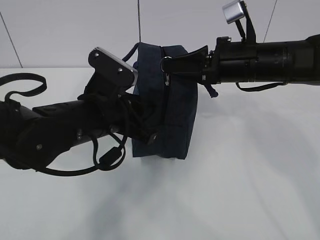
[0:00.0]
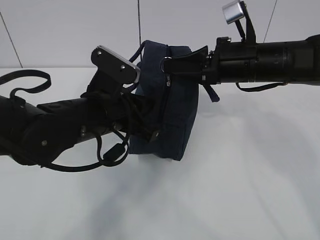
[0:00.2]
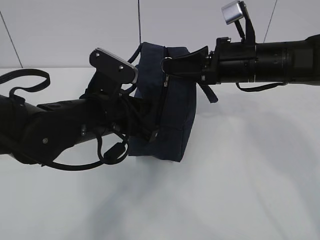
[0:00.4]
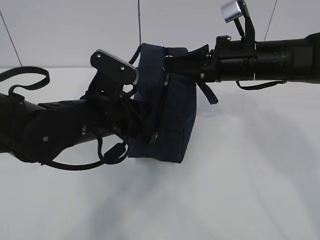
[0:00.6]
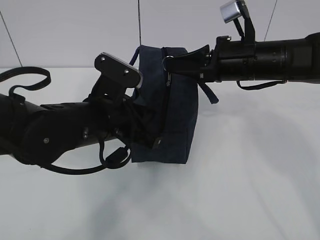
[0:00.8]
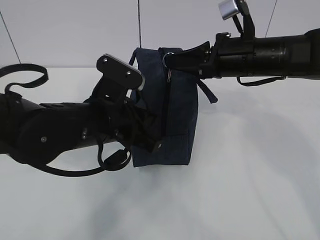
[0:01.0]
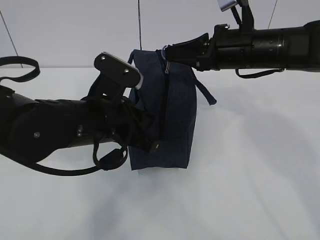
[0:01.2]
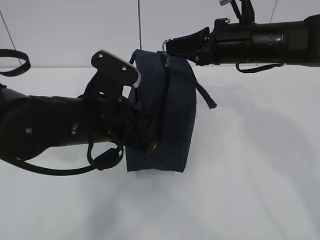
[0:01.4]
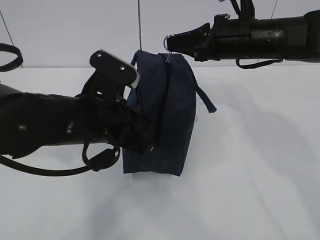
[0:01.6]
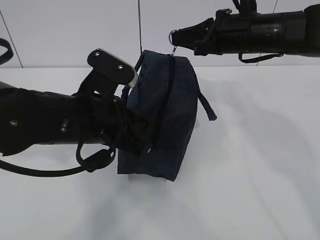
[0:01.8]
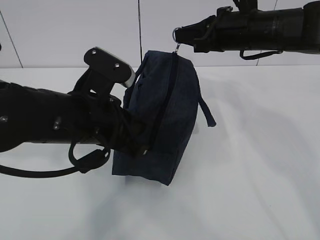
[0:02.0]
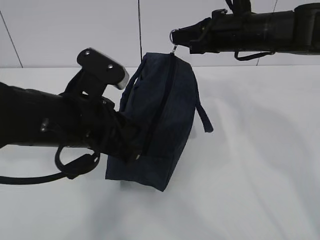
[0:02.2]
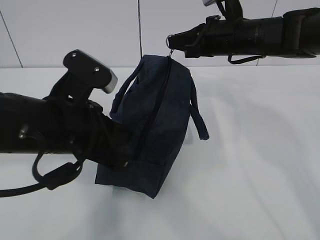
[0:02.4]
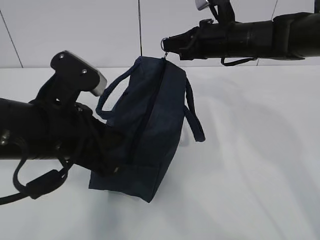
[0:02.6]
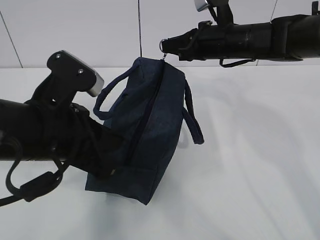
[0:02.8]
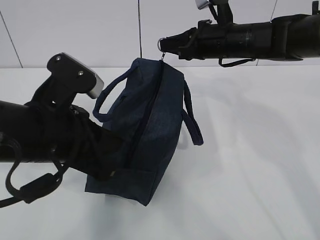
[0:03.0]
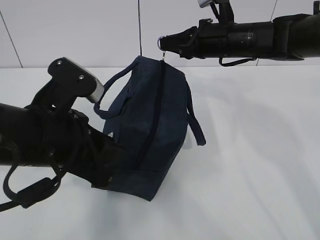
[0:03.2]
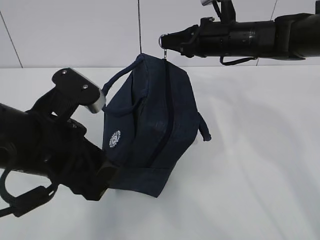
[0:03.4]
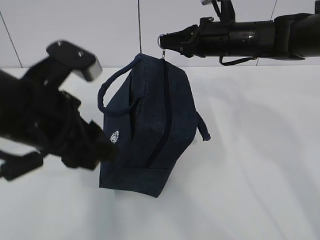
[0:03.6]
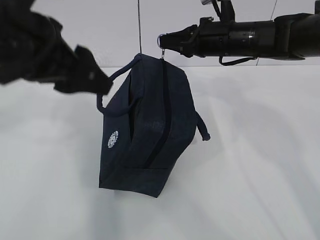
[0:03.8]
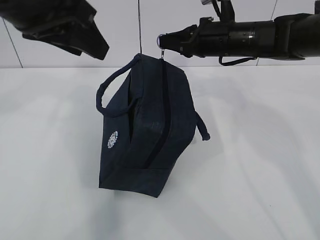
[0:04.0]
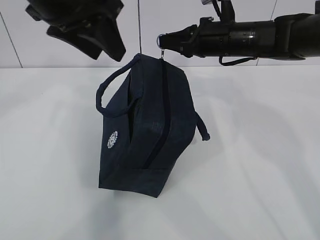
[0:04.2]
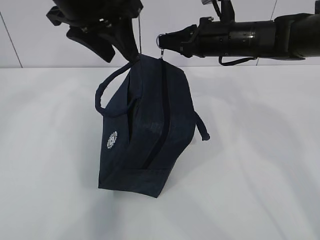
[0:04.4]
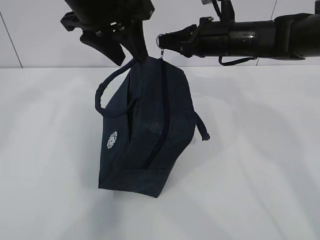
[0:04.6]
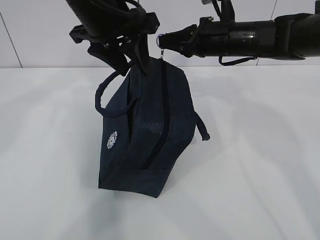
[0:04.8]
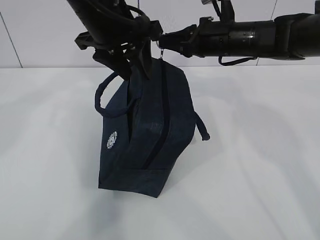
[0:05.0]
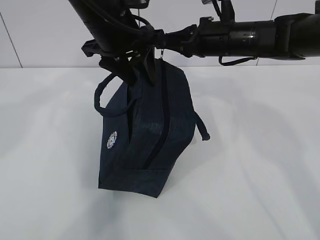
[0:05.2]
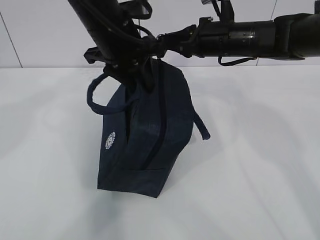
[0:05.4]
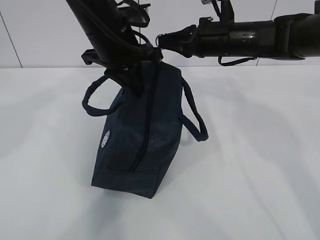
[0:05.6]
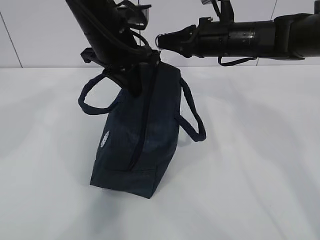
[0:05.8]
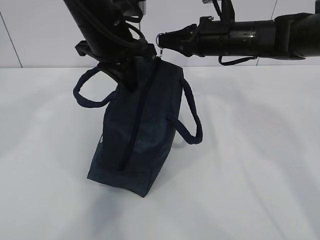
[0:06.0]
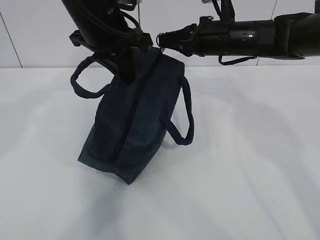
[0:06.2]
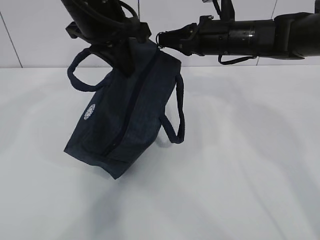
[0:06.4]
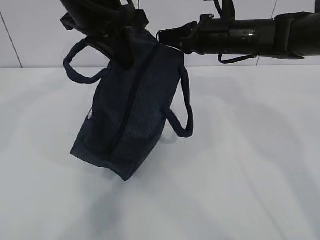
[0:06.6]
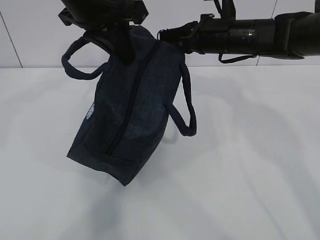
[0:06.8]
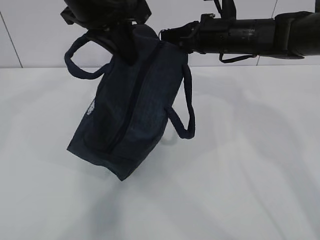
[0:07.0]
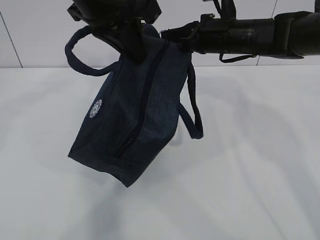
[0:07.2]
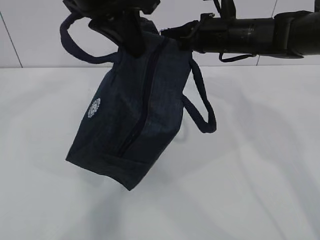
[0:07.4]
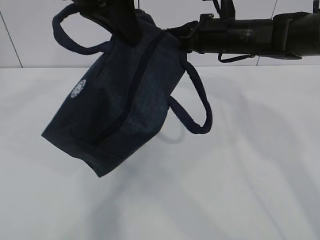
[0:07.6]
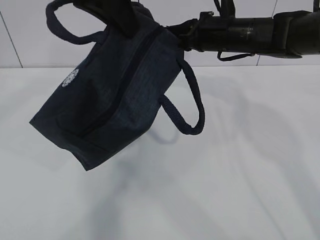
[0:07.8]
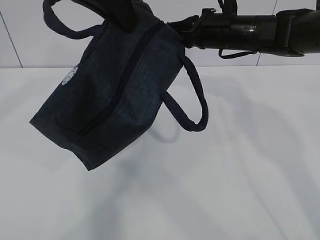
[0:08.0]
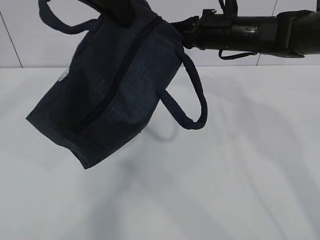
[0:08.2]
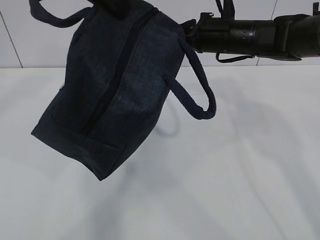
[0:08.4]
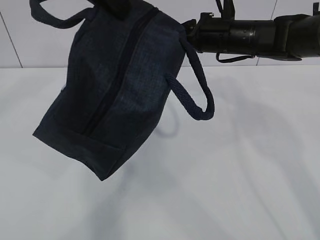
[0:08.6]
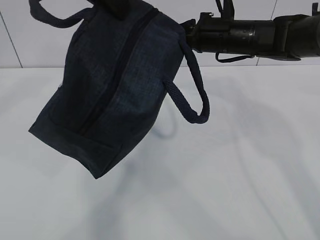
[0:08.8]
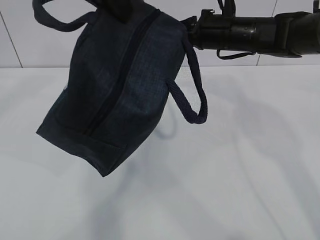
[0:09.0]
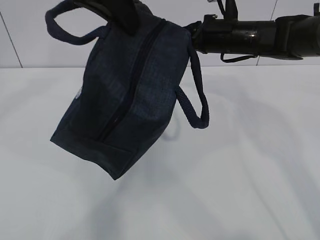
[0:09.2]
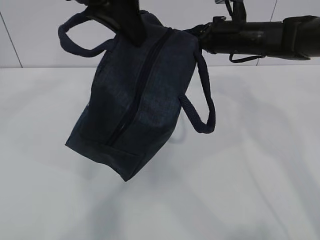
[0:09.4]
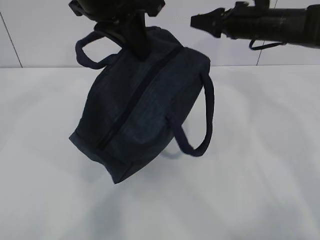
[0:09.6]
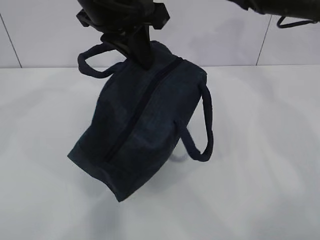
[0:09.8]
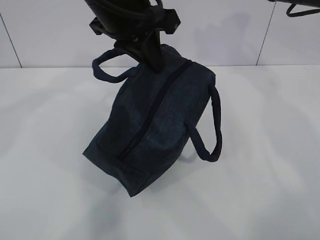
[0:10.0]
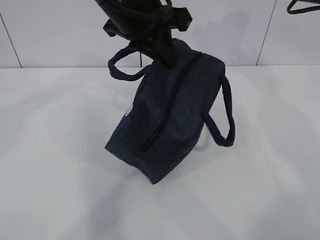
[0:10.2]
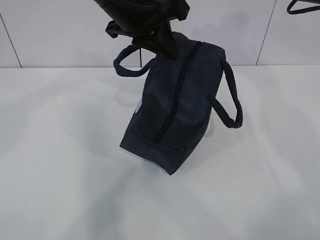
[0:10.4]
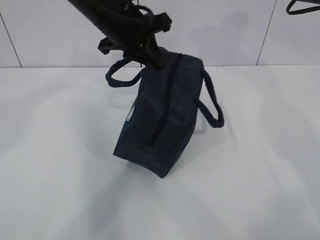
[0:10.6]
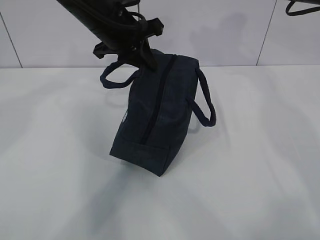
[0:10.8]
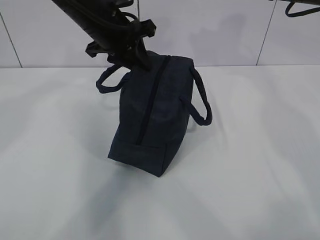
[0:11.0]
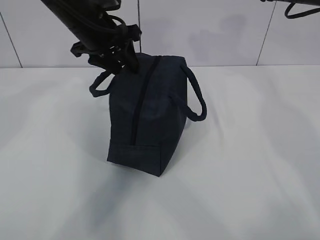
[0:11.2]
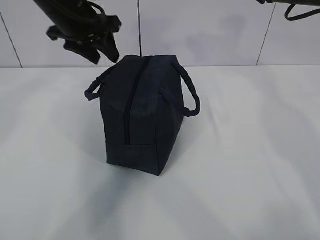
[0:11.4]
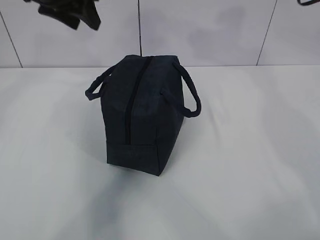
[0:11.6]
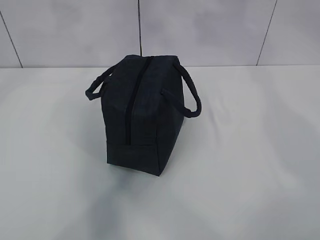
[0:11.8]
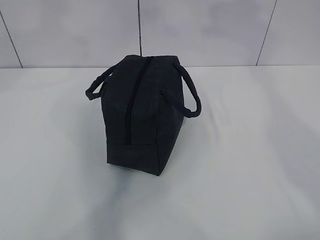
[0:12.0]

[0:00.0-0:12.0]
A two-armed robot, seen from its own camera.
Step, 0:00.0 to 0:00.8: Grab the lunch bag with your left hand.
0:00.0 to 0:01.6: The left gripper closes.
0:01.6 to 0:03.0: The left gripper changes place by some 5 cm, while the right gripper shifts about 5 cm forward.
0:03.0 to 0:04.4: The left gripper moves upward and forward, about 20 cm, and opens its fingers.
0:04.4 to 0:06.0: The left gripper travels downward by about 5 cm, and closes its fingers.
0:06.0 to 0:07.6: The left gripper travels upward and backward by some 10 cm.
0:07.6 to 0:09.0: The grippers move only a little.
0:09.0 to 0:10.4: The right gripper travels to the right and upward by approximately 15 cm, and opens up; the left gripper heads downward and forward, covering some 15 cm.
0:10.4 to 0:12.0: The right gripper goes about 20 cm upward and backward, and closes; the left gripper is displaced upward and to the left by roughly 20 cm, and opens.

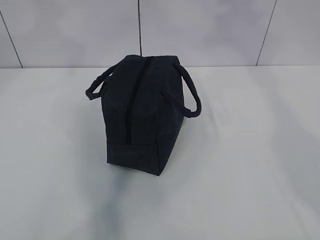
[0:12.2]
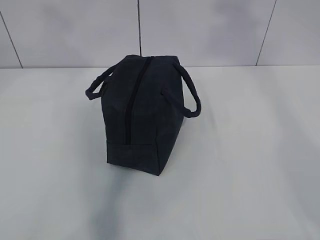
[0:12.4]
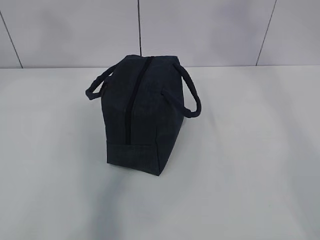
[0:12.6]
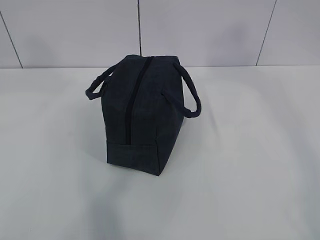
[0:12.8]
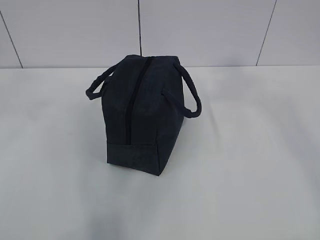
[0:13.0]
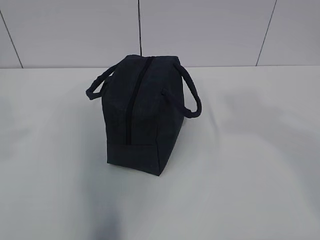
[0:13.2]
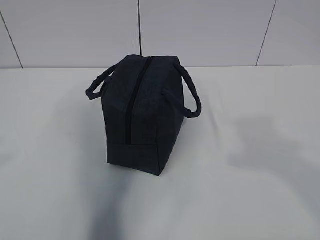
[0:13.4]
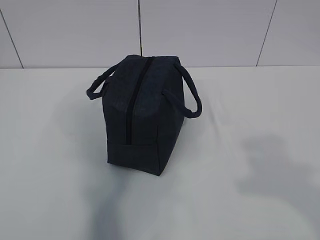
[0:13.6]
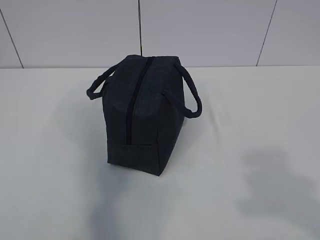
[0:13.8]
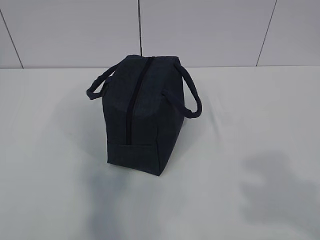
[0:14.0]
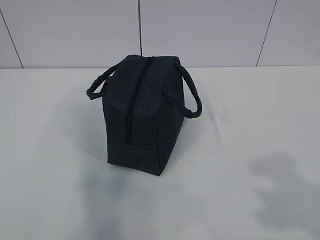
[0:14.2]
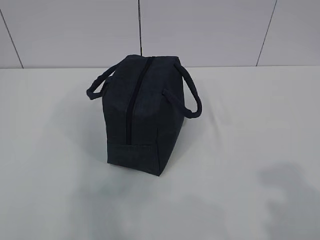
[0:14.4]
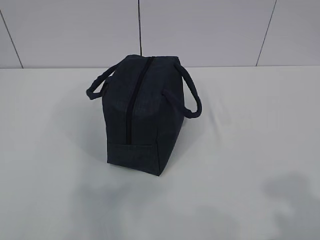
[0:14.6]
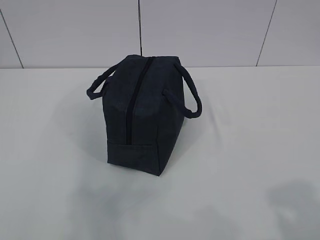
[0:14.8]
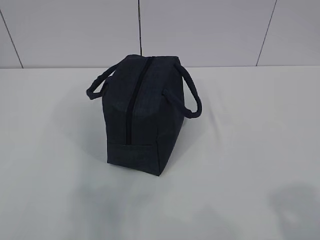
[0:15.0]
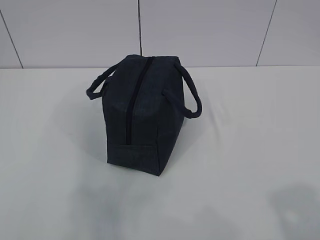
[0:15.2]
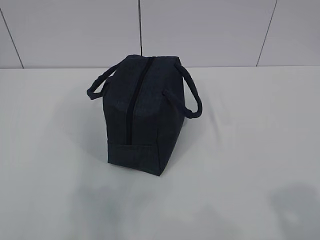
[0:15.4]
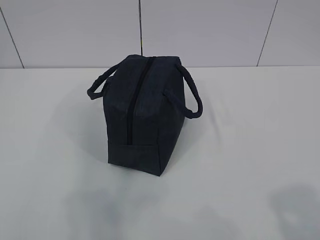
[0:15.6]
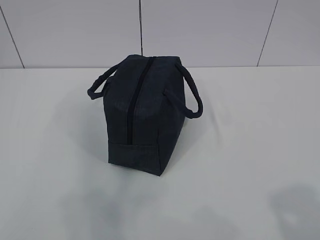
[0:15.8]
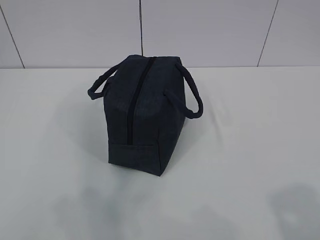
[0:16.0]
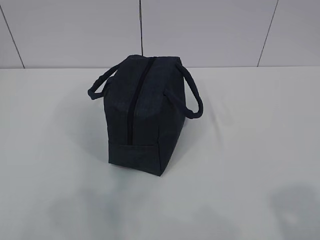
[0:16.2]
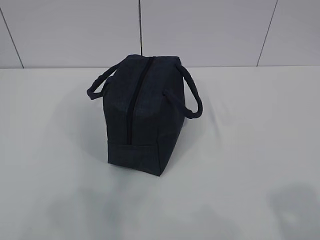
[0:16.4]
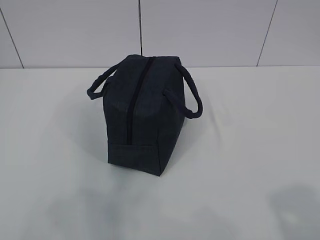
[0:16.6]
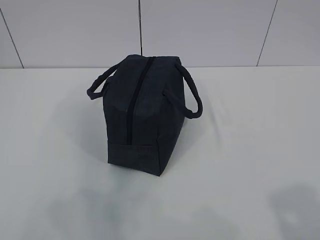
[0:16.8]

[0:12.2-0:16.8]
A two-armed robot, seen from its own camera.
0:12.2 to 0:13.8: The left gripper heads backward, downward and to the left, covering some 35 cm. Meanwhile the right gripper heads backward and downward, covering roughly 35 cm.
0:13.8 to 0:15.2: The left gripper is displaced downward by approximately 5 cm.

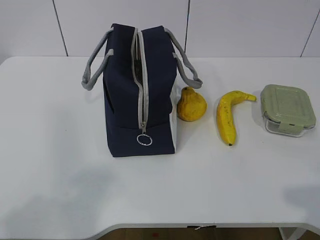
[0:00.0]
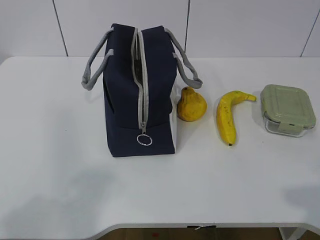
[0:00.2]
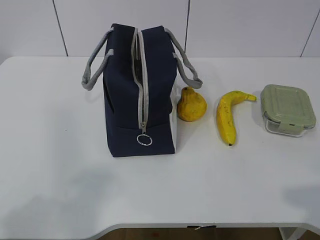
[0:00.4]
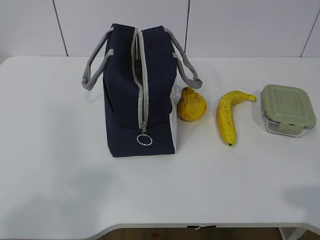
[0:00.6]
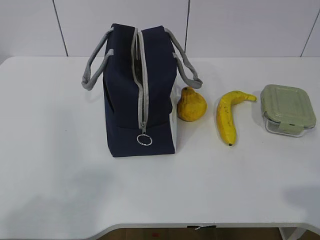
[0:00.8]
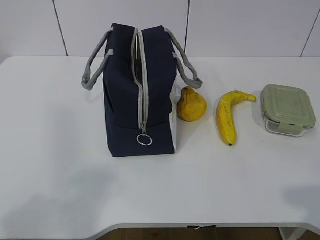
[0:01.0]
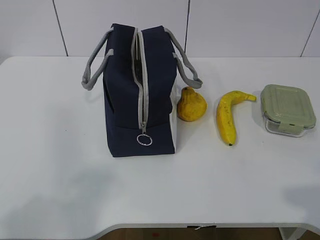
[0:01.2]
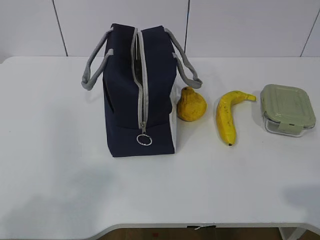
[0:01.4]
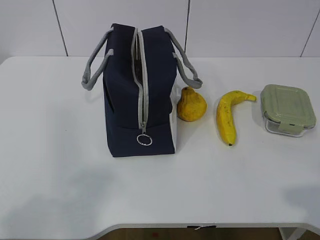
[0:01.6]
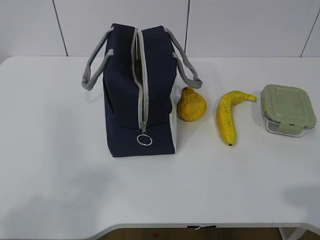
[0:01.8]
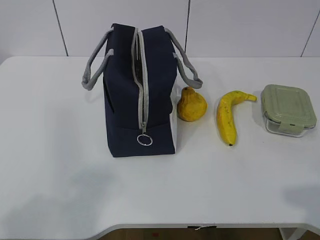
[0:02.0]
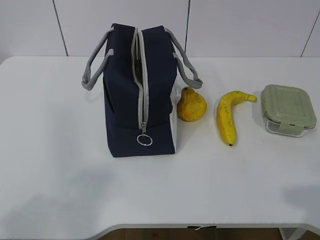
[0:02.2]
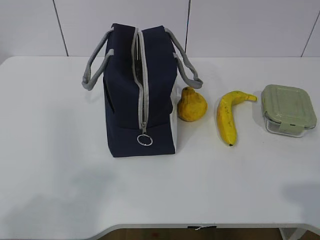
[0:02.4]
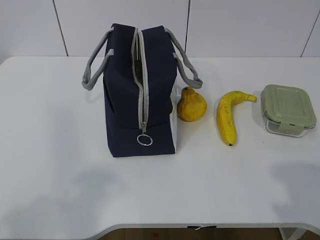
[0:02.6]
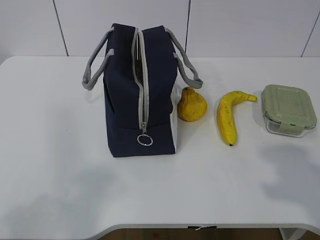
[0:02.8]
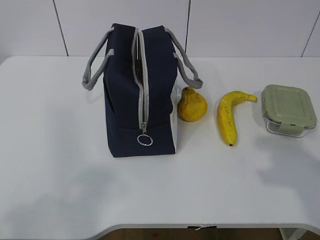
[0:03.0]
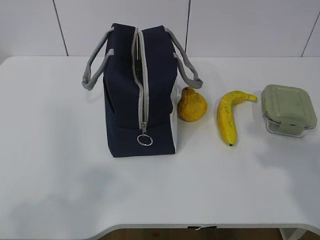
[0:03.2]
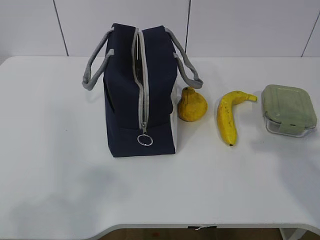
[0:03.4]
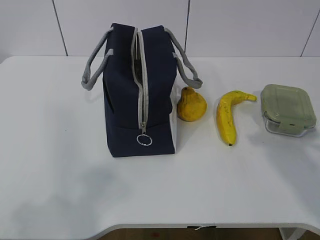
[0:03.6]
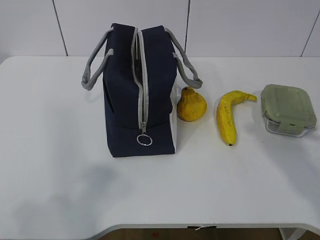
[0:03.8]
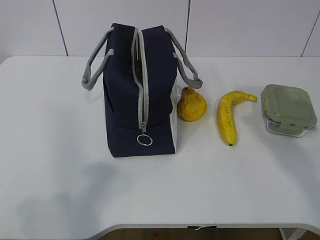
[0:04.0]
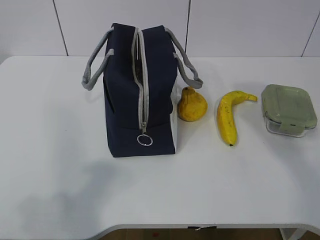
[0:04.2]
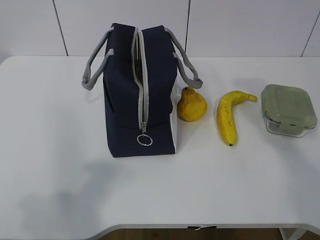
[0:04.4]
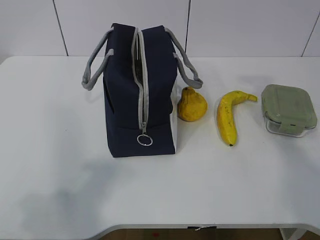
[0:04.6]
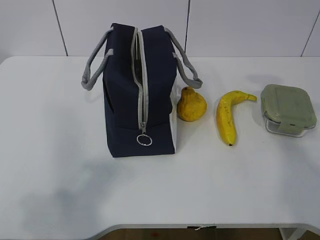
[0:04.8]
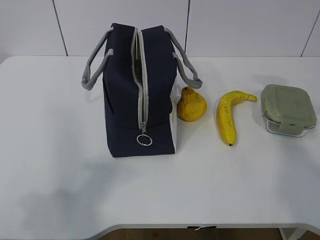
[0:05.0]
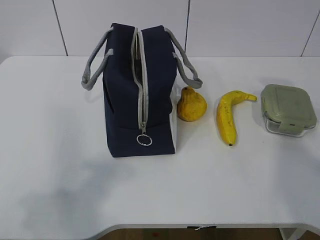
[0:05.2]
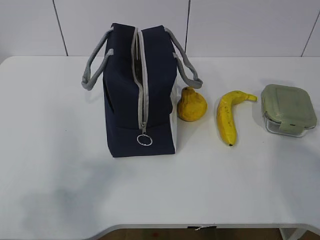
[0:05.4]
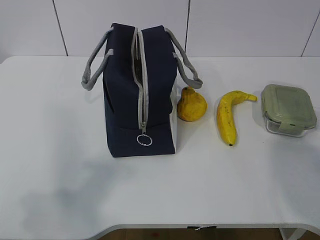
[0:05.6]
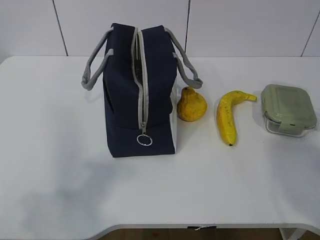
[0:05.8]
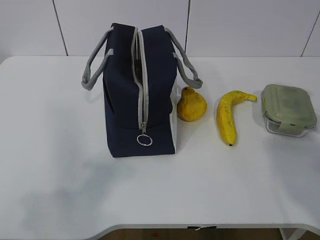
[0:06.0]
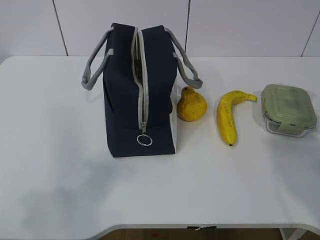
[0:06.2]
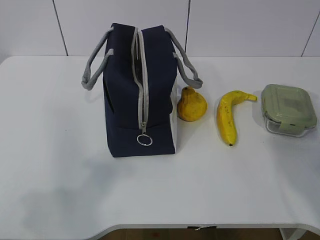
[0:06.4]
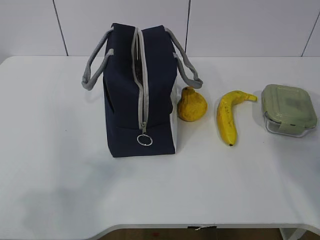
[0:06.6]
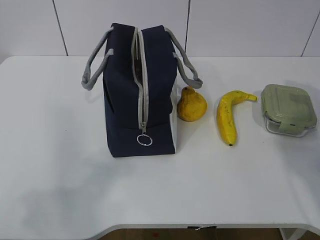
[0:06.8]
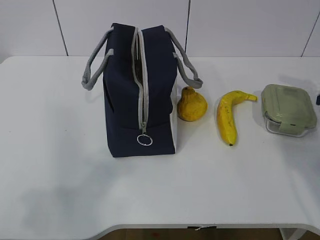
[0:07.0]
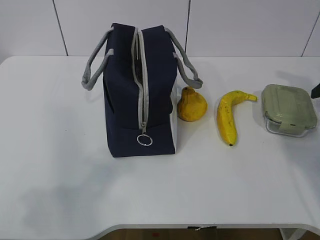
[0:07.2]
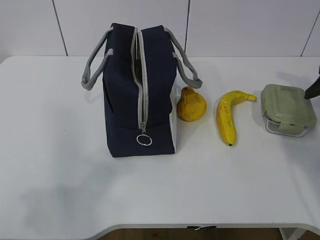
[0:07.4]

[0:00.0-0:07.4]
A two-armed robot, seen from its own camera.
0:01.4 to 0:03.0: The right gripper goes roughly 10 cm forward.
0:04.4 to 0:06.0: The right gripper is displaced downward, to the right and forward by roughly 10 cm.
0:06.0 to 0:07.4: The right gripper heads forward, covering some 5 cm, and opens up.
